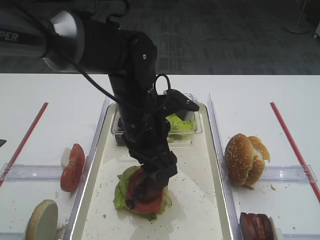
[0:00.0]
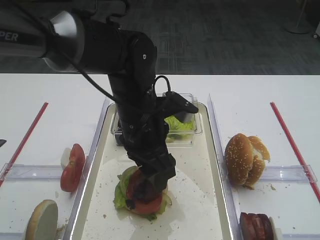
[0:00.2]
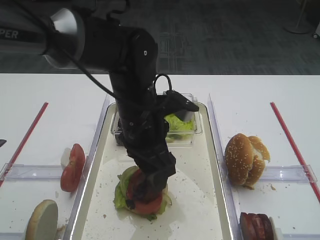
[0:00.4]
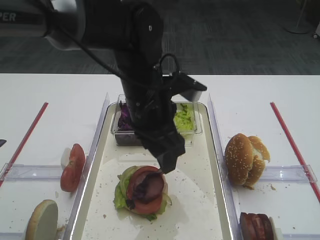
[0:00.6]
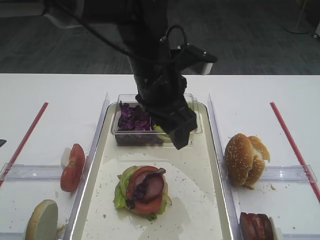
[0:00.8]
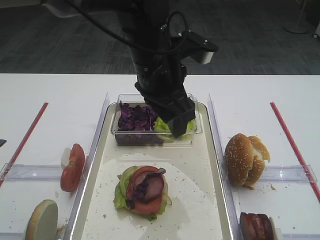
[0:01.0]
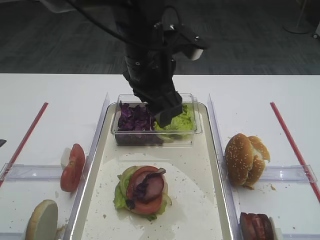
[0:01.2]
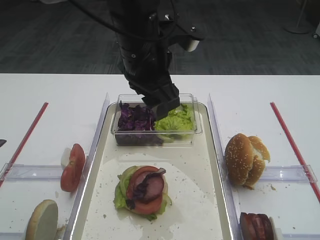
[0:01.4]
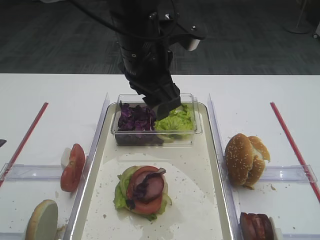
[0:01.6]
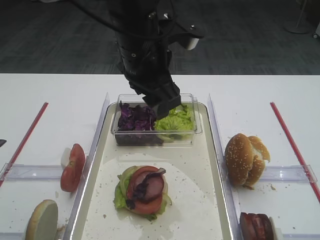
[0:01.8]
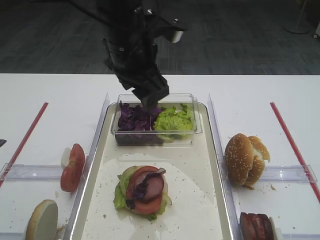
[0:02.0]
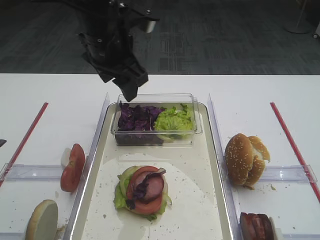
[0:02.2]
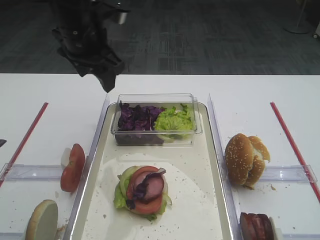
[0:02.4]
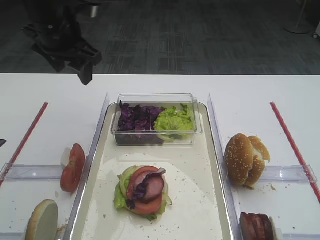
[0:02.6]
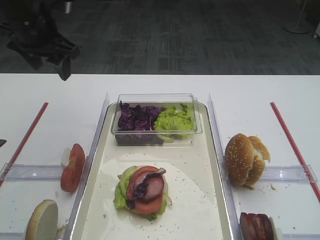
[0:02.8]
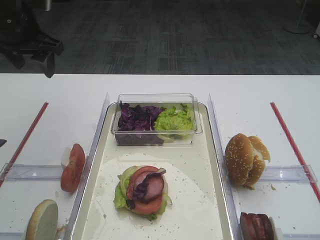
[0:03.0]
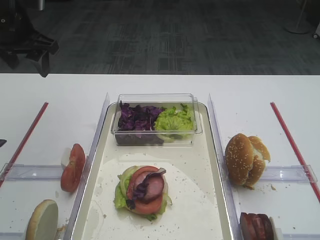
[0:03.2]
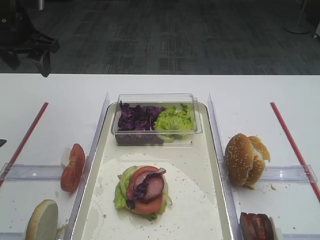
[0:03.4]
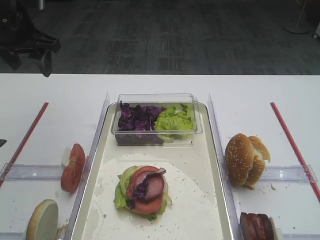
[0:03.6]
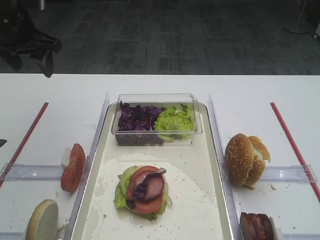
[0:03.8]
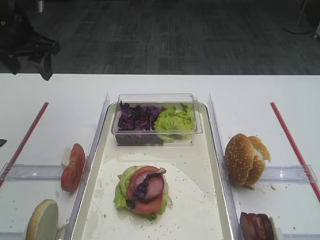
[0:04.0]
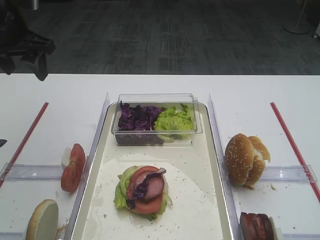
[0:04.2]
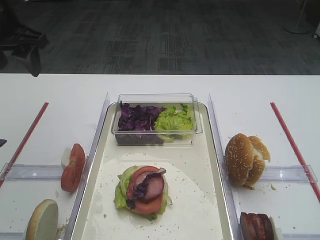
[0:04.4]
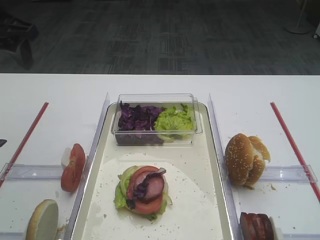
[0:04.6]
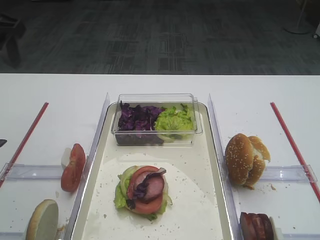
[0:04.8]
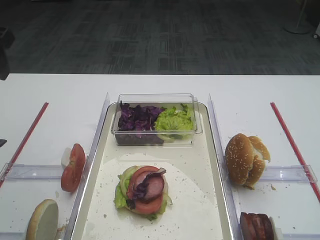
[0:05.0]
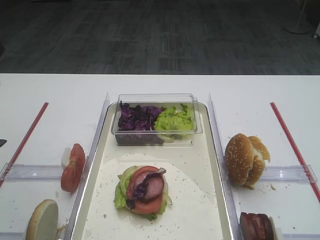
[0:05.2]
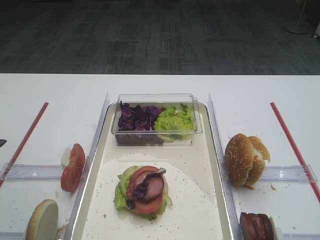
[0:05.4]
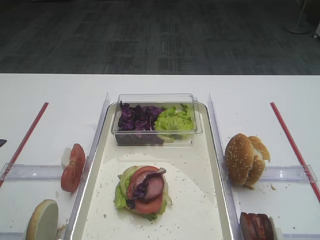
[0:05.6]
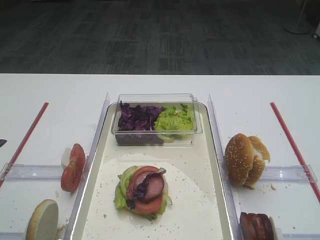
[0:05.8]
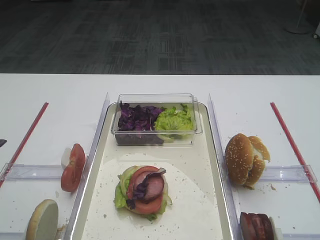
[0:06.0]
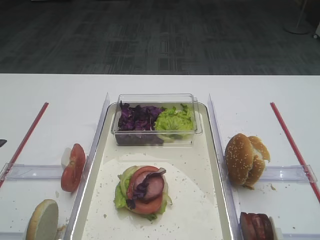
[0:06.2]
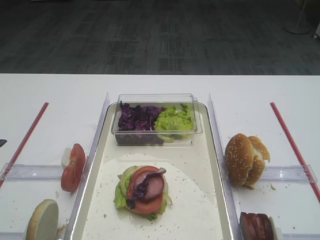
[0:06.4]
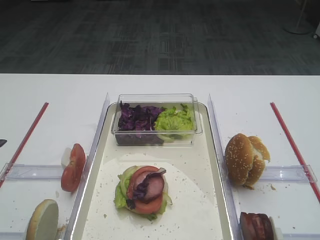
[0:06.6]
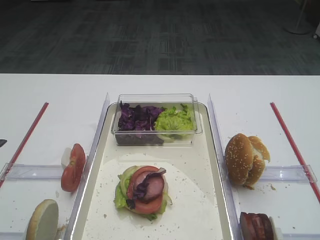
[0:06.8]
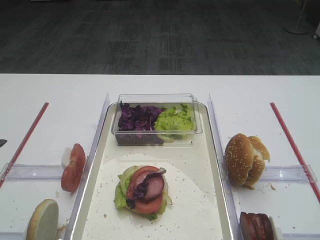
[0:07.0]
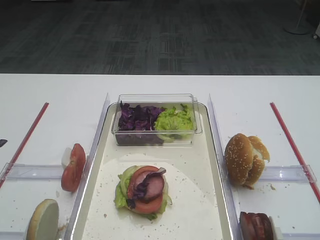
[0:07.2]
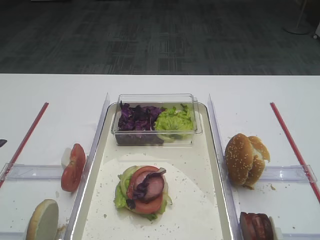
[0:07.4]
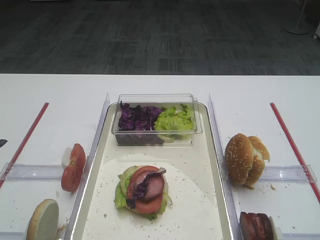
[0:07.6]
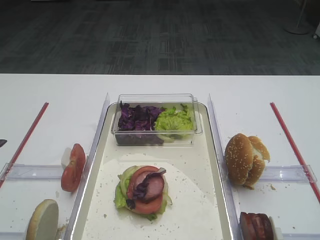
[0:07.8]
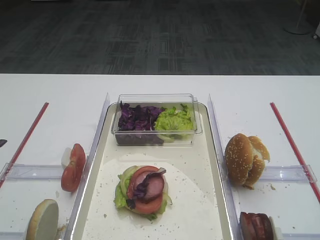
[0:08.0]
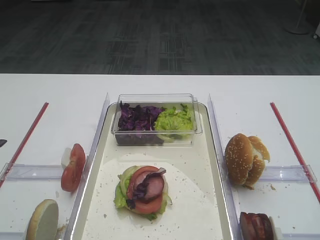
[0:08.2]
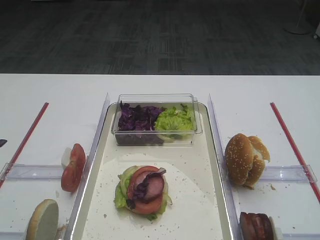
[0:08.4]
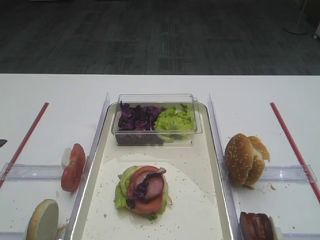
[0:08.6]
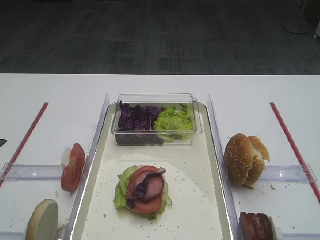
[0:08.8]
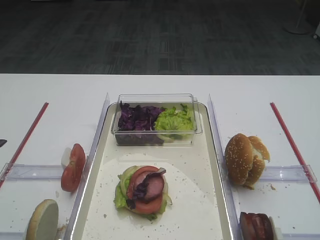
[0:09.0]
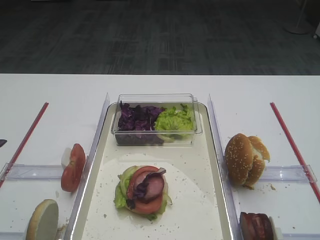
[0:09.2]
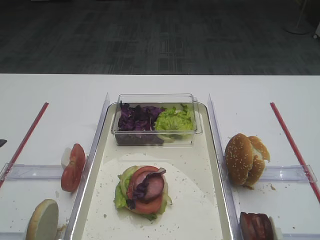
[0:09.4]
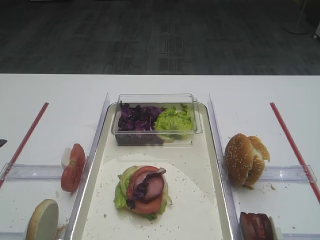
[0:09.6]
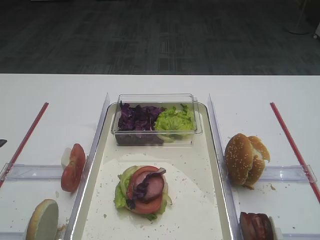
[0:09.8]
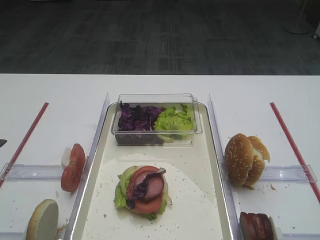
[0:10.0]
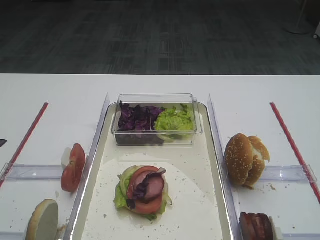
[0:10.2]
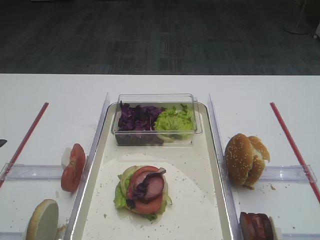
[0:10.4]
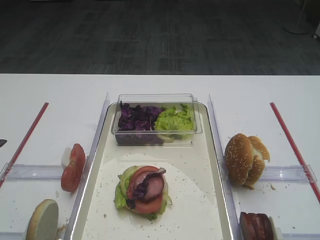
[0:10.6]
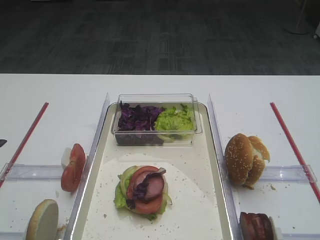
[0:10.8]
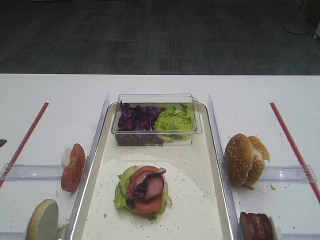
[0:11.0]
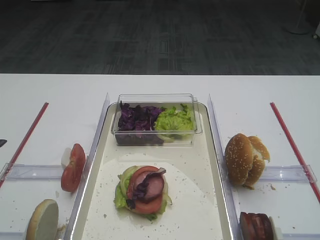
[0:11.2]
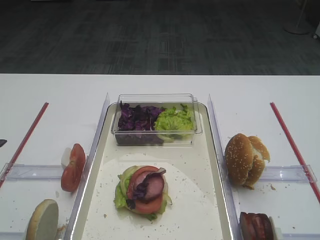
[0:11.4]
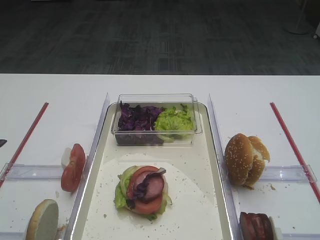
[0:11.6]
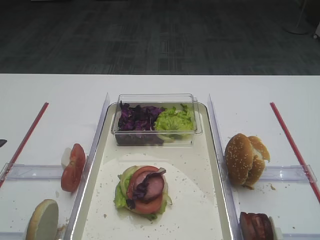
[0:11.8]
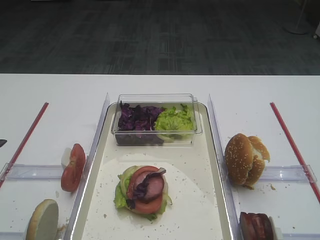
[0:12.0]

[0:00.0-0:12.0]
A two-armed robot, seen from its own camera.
0:00.0 to 0:01.6: The left gripper heads upward, covering about 10 cm.
0:01.6 to 0:03.0: The left gripper heads to the left, covering approximately 20 cm.
0:04.4 to 0:06.0: The left gripper goes approximately 25 cm backward.
0:07.6 to 0:12.0: The two grippers keep their place.

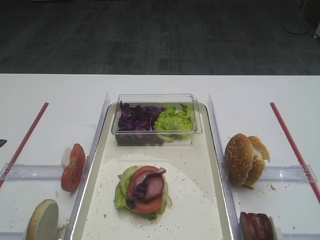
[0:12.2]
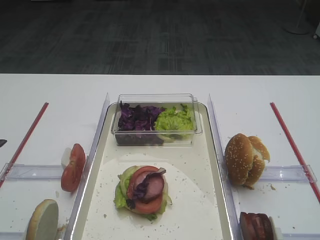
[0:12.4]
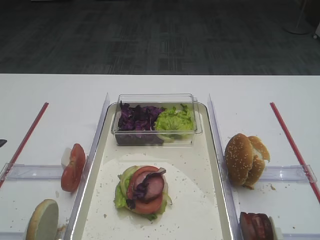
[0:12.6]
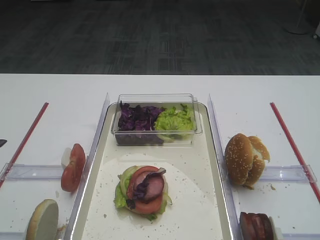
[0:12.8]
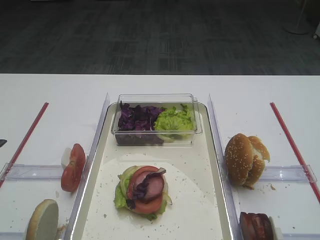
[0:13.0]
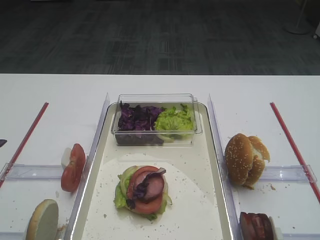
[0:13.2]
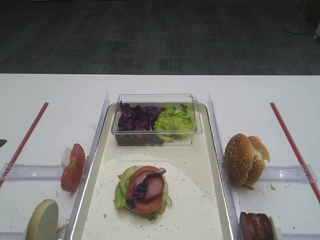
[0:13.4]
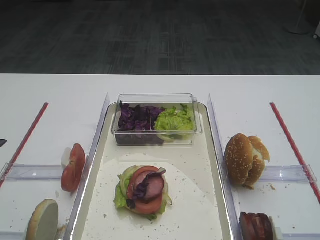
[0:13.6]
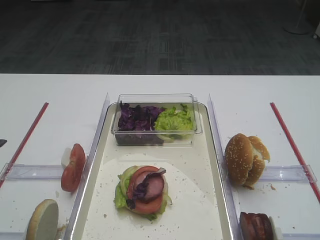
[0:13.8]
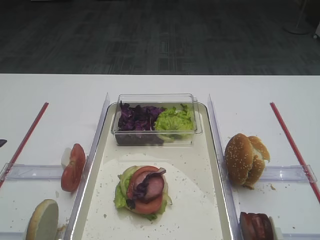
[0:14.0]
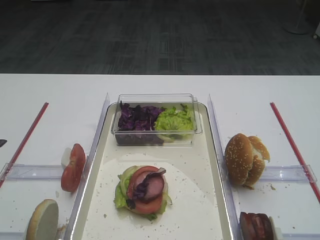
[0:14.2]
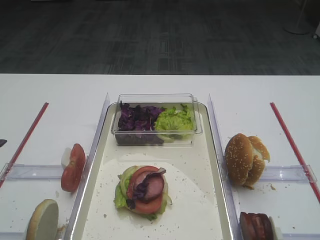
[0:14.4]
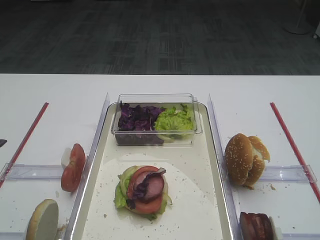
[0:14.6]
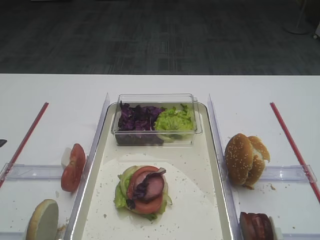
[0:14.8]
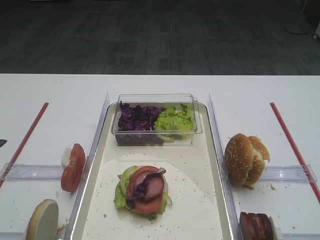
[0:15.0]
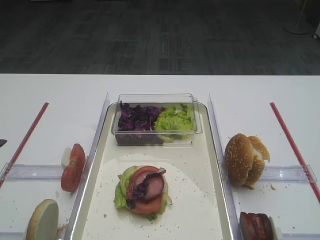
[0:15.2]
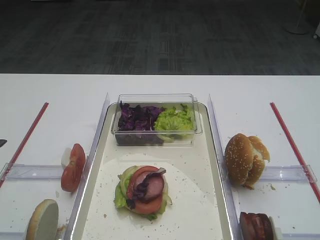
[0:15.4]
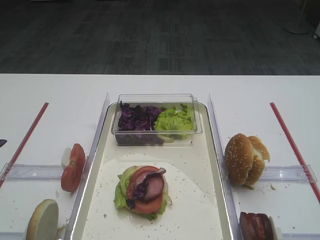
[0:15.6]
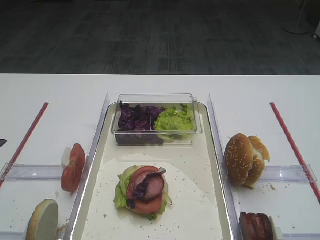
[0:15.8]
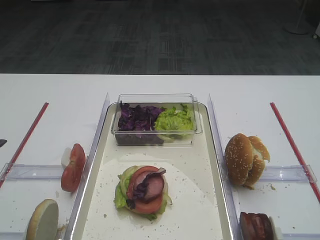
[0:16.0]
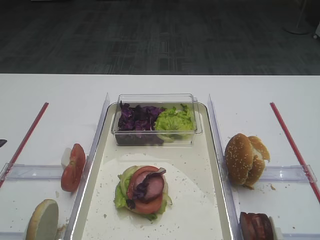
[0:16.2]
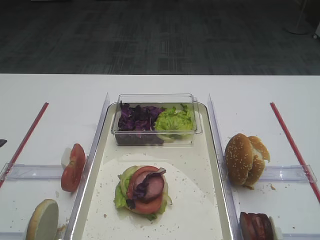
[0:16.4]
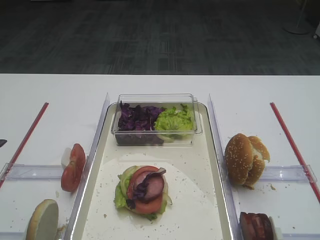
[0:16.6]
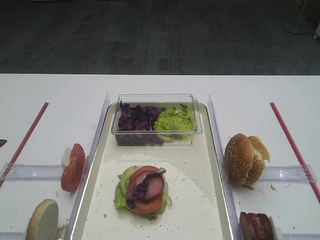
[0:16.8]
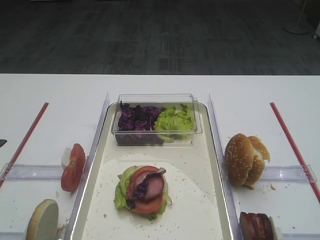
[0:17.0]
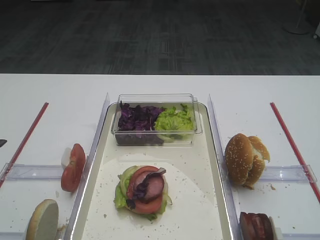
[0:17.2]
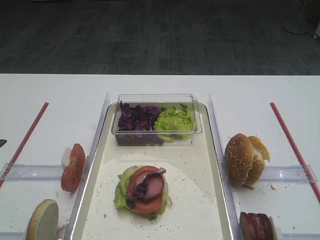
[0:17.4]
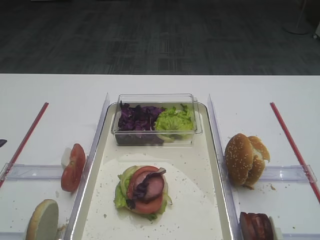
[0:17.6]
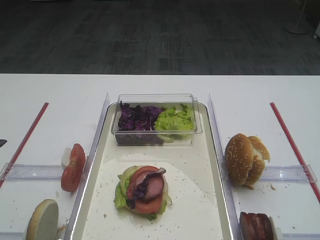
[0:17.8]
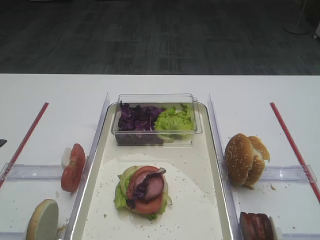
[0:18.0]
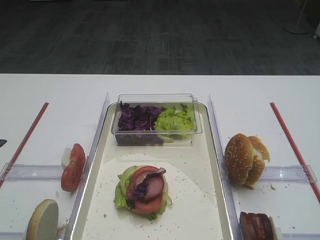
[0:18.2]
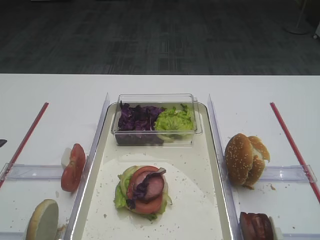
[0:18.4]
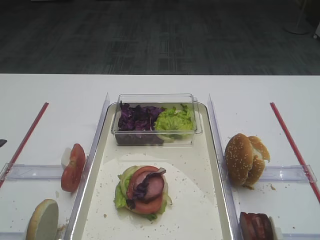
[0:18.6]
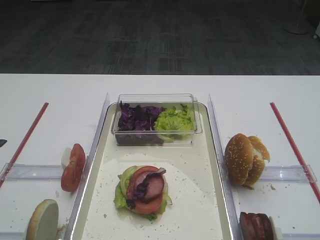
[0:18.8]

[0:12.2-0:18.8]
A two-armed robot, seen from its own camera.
0:12.2 to 0:18.8: Both grippers stay about where they are.

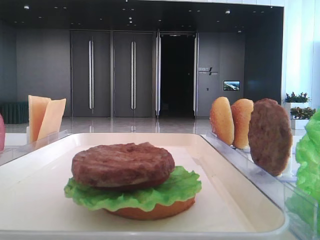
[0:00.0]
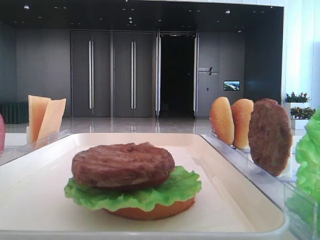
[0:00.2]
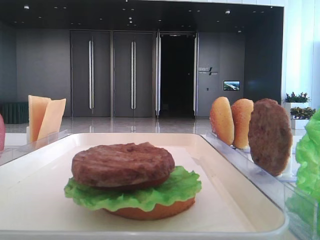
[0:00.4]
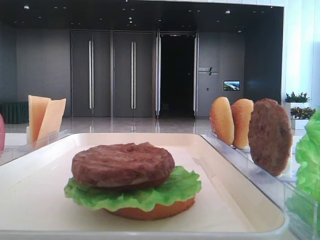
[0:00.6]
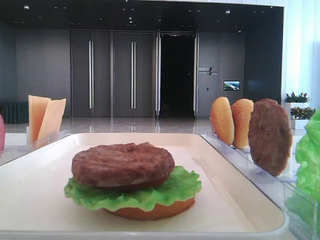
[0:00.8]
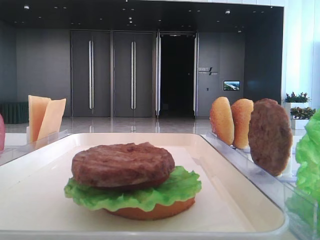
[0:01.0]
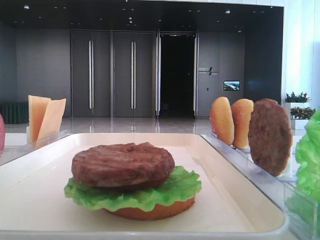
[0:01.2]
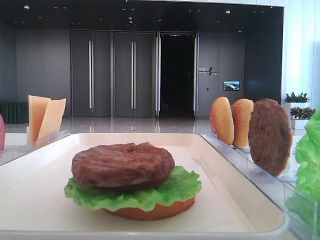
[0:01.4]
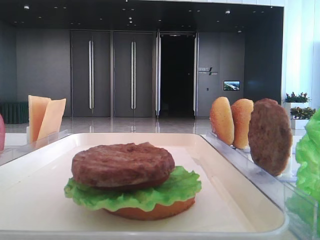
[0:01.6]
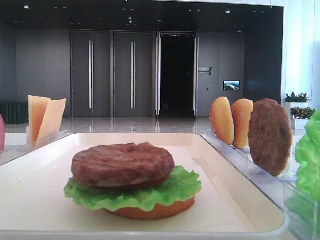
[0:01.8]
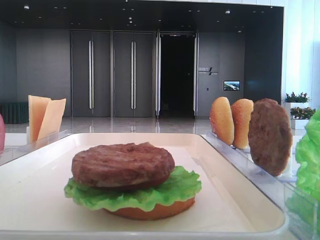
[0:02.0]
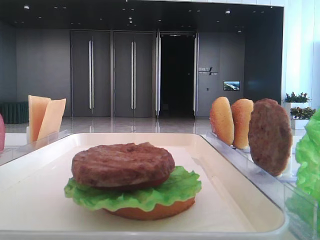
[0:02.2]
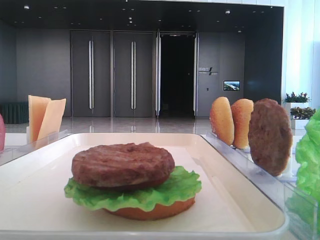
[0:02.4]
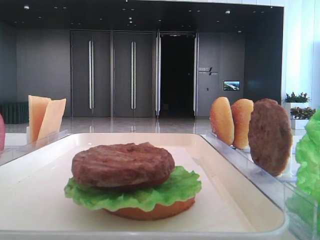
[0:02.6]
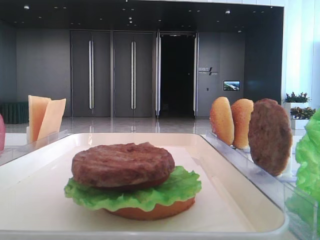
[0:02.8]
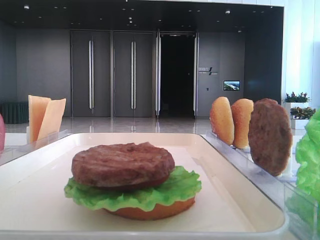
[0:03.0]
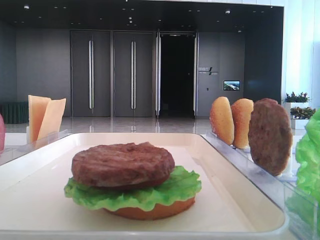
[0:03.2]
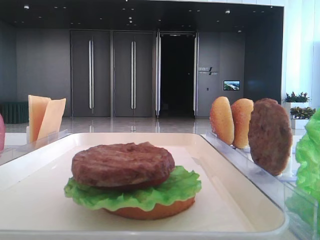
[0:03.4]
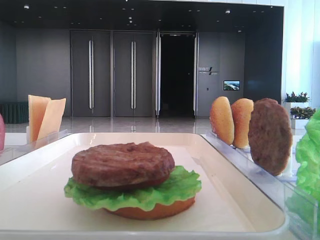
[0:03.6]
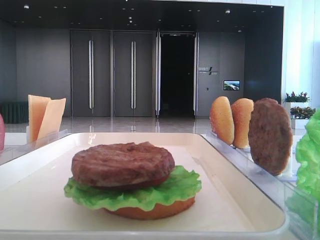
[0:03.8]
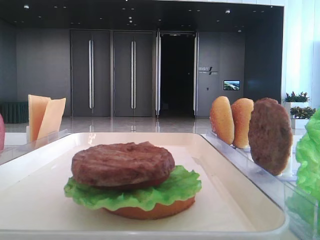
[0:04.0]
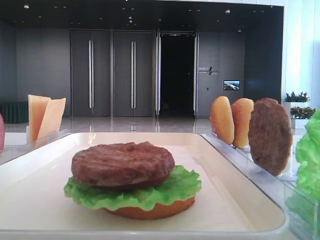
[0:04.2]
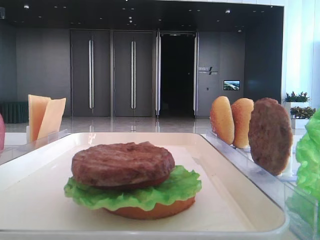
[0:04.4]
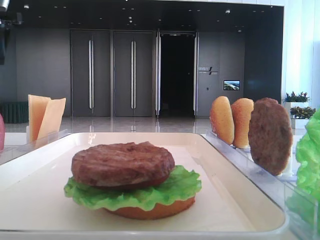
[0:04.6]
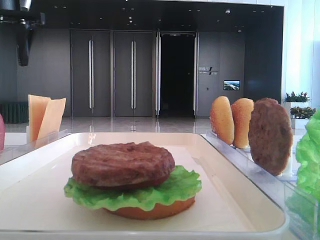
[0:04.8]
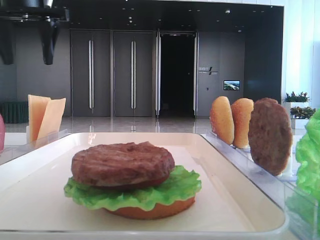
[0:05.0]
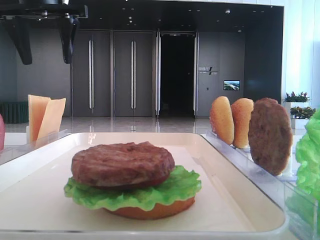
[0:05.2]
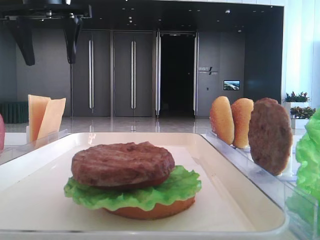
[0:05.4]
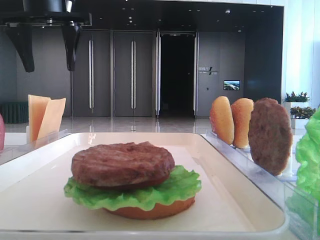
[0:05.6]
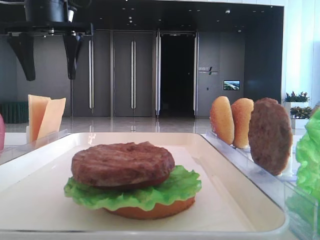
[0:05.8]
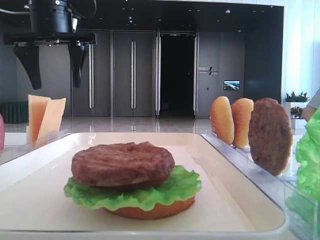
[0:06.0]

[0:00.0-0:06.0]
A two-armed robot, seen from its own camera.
0:03.0 to 0:04.4: The left gripper travels forward by approximately 35 cm.
0:04.4 to 0:06.0: The left gripper heads to the right, covering approximately 15 cm.
